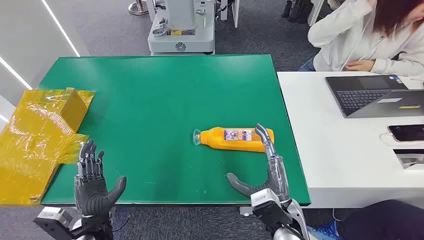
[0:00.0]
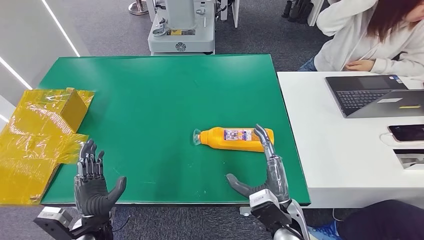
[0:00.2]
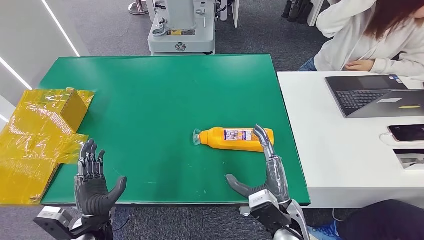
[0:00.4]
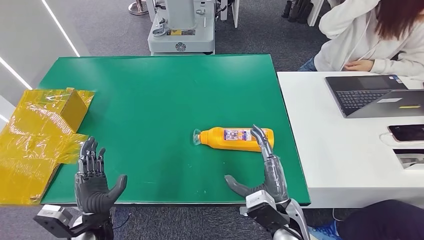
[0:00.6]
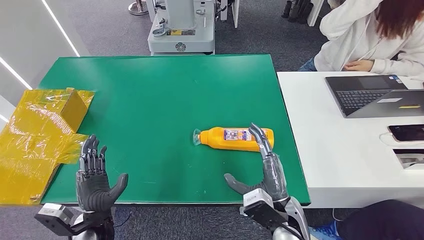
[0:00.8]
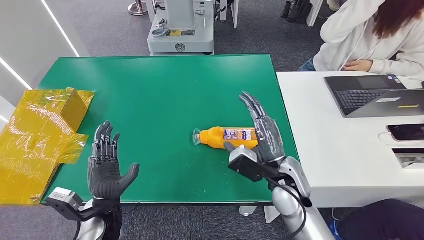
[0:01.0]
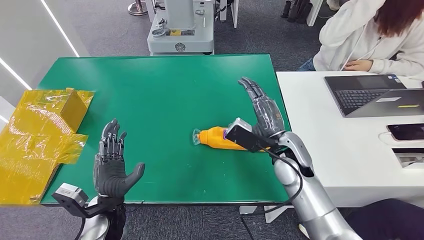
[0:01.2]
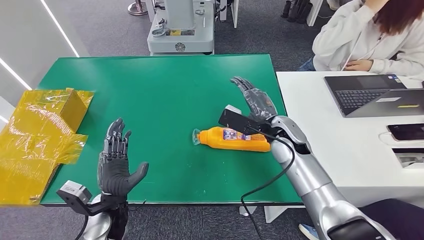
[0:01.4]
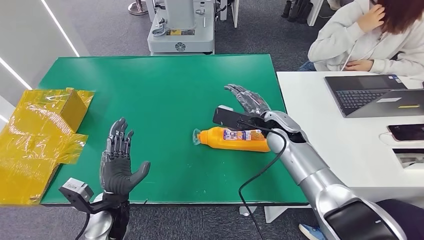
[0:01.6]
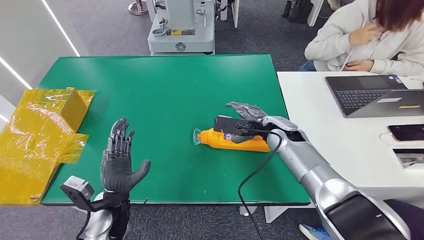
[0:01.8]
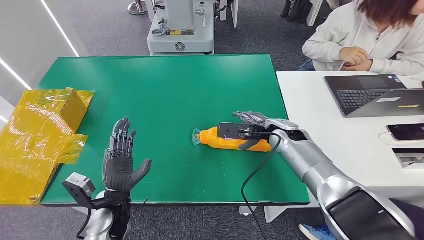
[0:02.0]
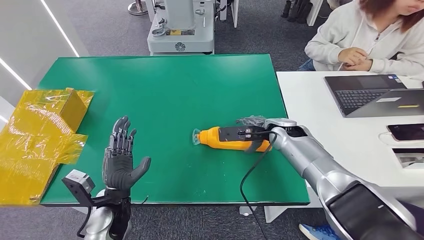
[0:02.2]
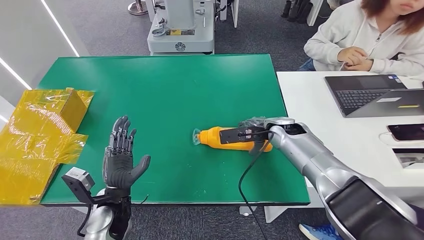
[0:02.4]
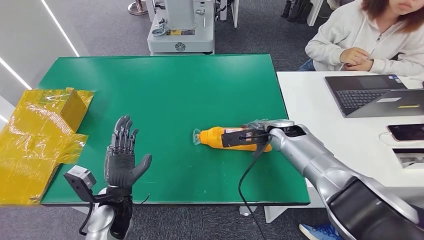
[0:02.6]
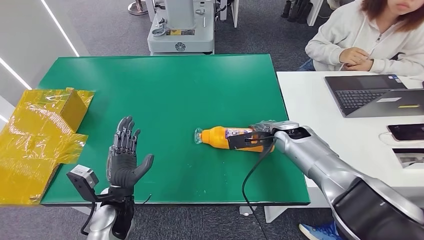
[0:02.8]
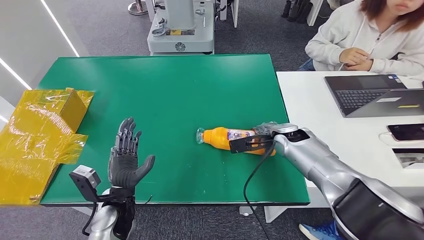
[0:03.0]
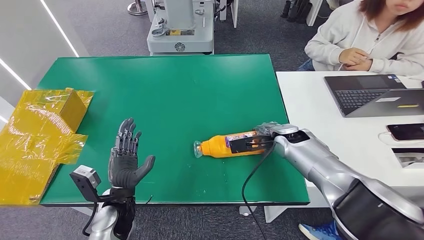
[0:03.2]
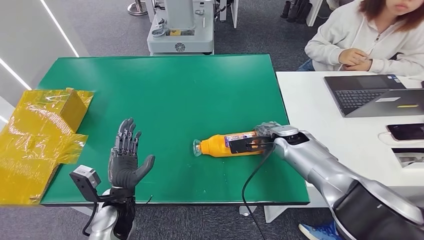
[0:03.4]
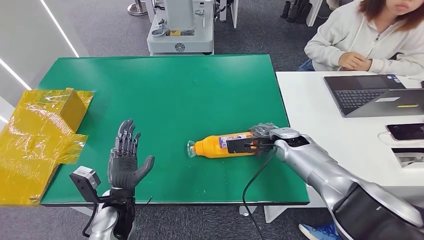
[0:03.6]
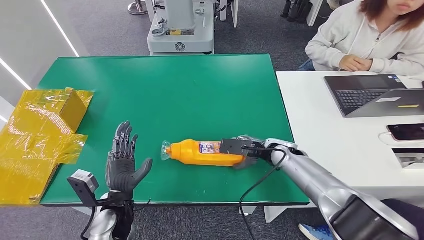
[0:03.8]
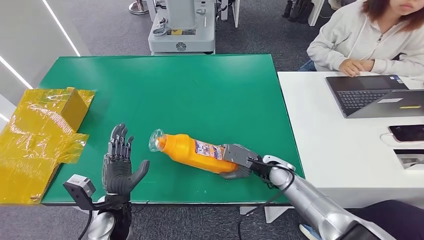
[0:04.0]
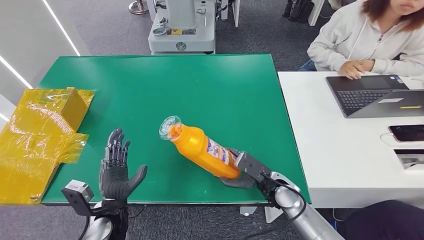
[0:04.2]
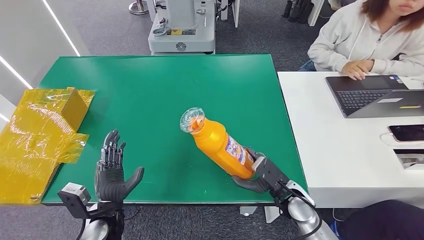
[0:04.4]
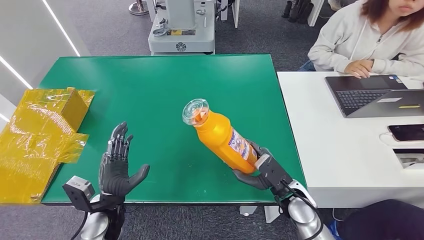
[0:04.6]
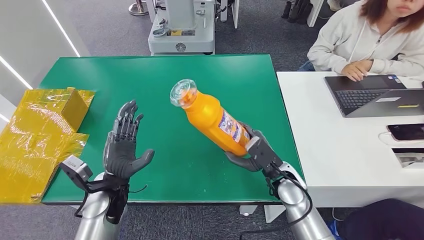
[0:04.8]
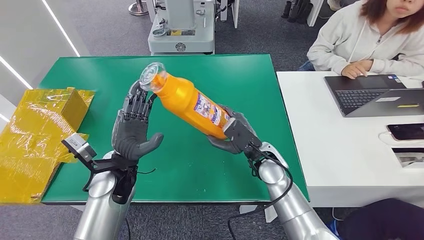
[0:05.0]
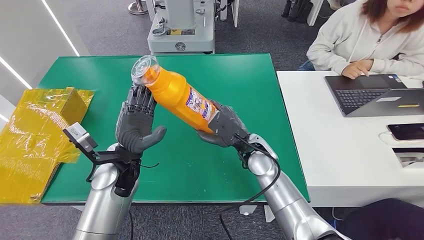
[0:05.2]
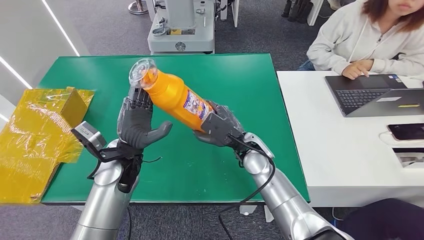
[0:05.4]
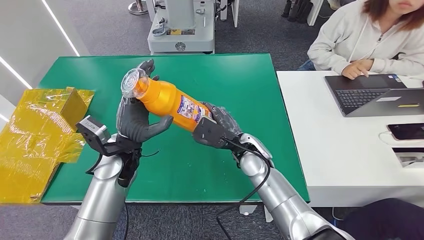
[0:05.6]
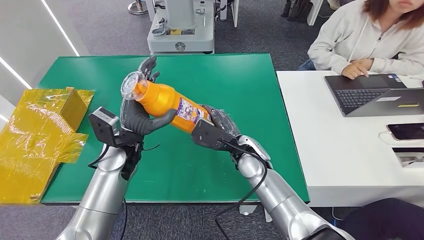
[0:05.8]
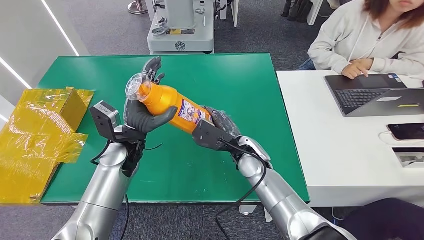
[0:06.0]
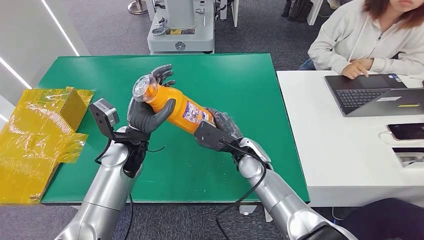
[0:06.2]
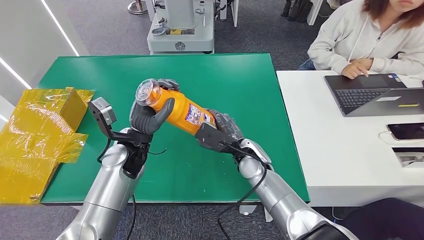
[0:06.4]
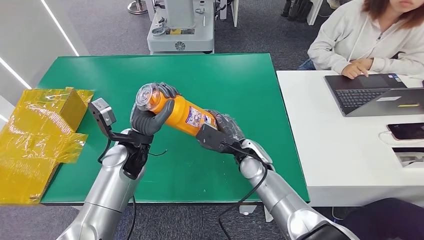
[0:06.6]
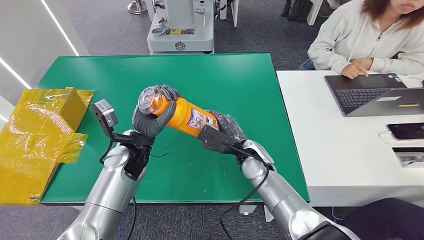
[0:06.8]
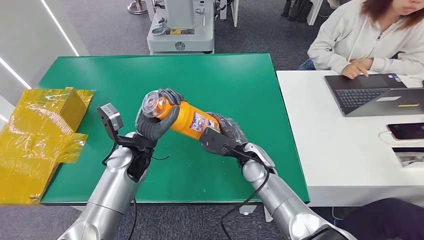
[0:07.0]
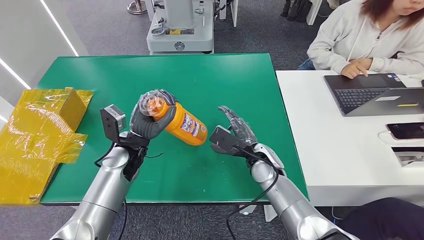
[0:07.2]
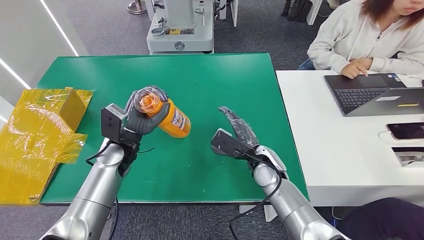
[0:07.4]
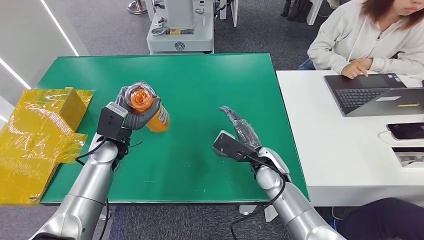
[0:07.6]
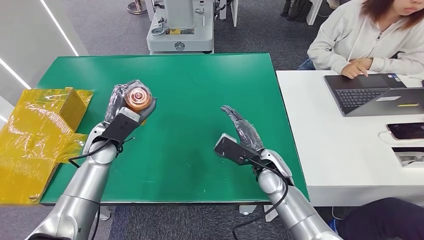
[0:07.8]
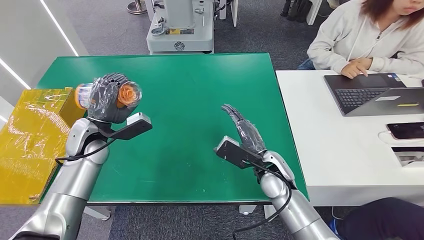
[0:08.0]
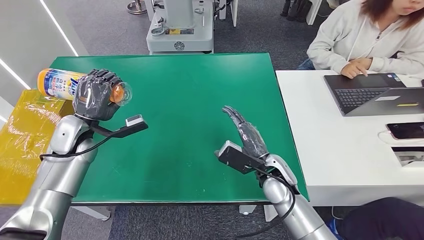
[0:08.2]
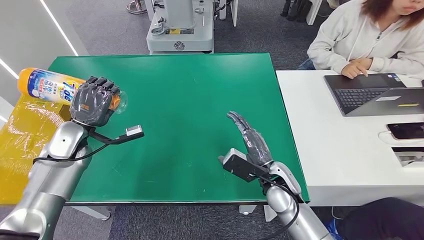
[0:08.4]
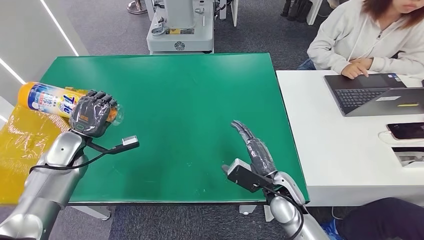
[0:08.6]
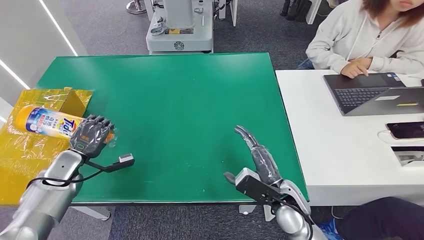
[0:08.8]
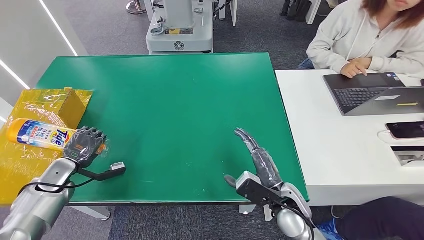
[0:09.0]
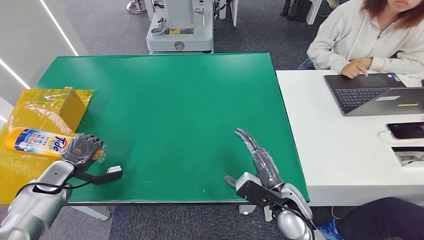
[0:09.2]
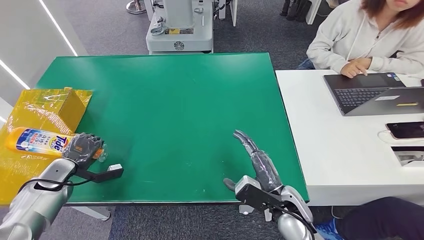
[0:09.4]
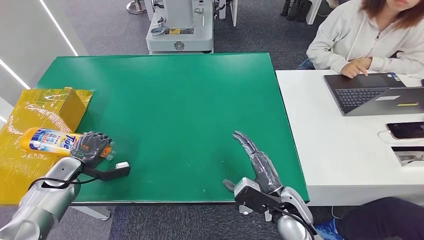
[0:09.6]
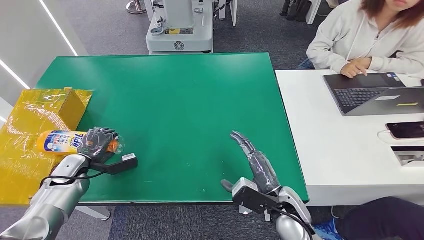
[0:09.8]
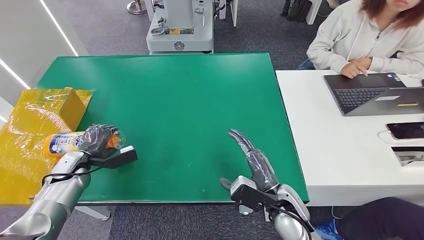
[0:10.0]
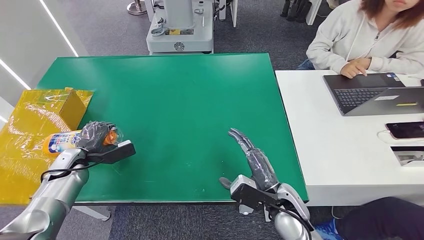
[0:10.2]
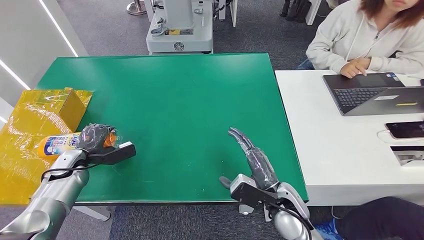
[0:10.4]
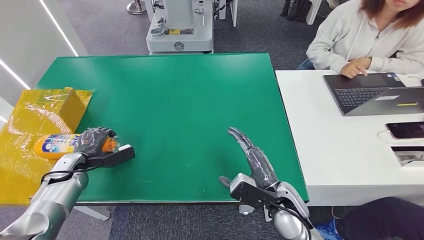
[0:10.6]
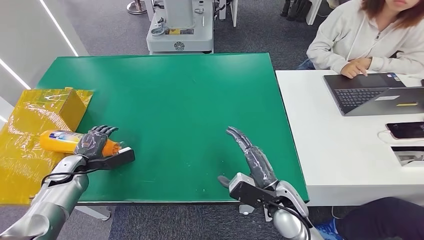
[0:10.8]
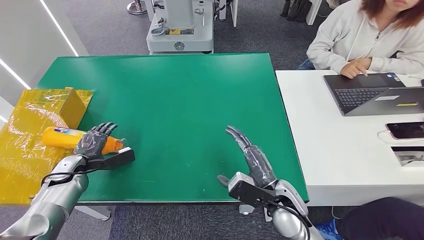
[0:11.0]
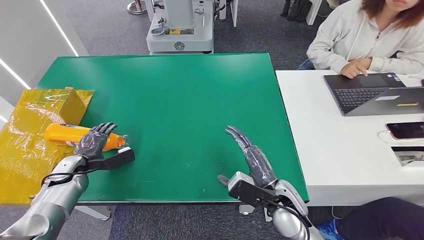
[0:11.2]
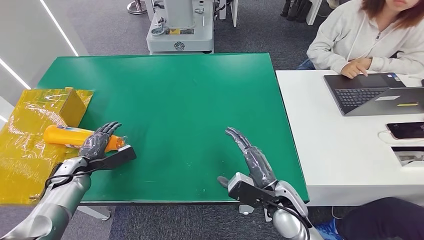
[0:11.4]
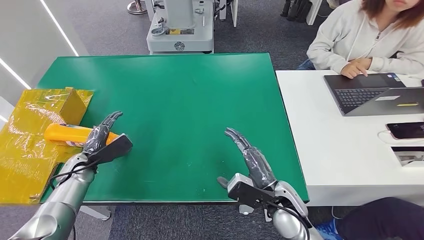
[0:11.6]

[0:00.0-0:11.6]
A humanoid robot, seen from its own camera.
Step, 0:00.0 to 0:05.8: Pick up the bottle from the table.
0:01.4 to 0:02.8: The right hand shifts by some 5 cm.
0:02.8 to 0:04.4: The right hand heads backward and downward, covering some 20 cm.
0:04.4 to 0:05.8: The left hand travels forward and upward by roughly 20 cm; the right hand moves to the left, forward and upward, roughly 15 cm.
0:05.8 to 0:07.2: The right hand moves about 5 cm.
0:07.2 to 0:08.8: The right hand is displaced backward by some 10 cm, while the left hand heads to the left, covering about 20 cm.

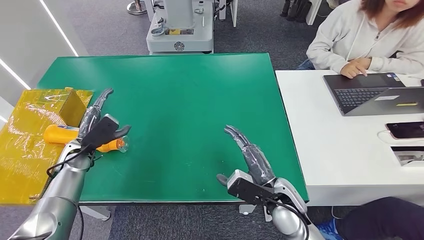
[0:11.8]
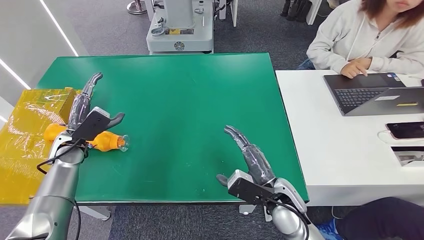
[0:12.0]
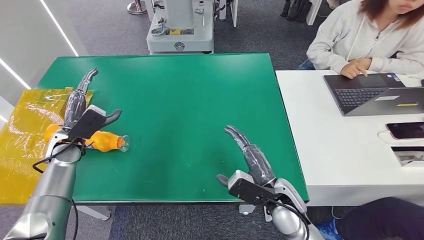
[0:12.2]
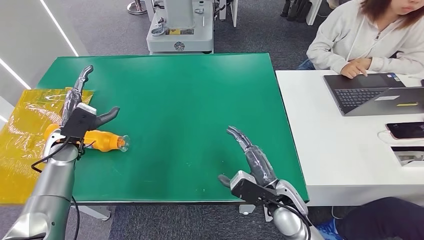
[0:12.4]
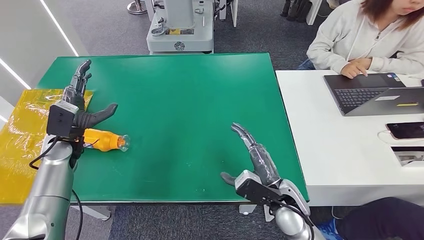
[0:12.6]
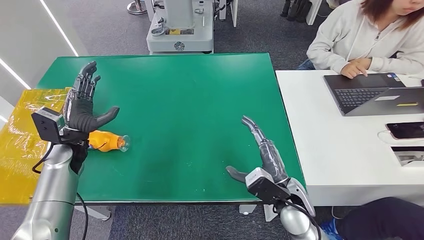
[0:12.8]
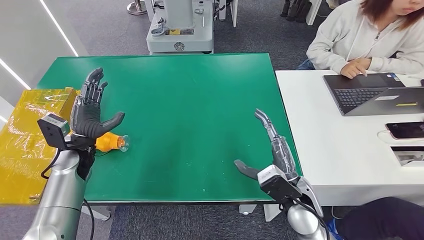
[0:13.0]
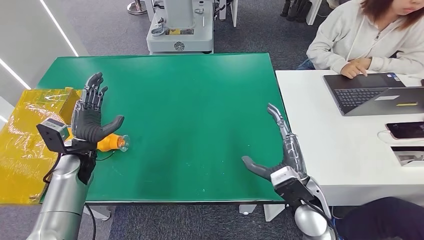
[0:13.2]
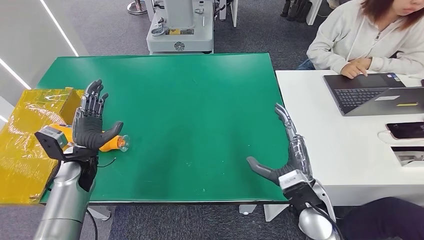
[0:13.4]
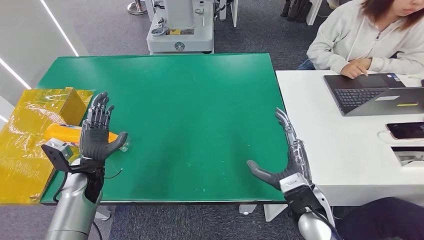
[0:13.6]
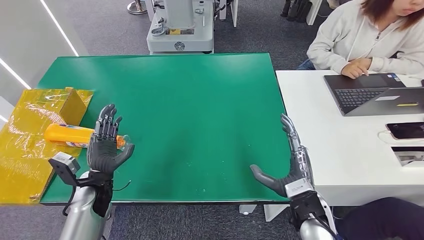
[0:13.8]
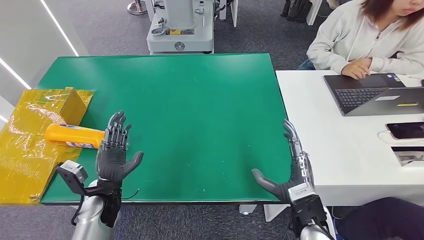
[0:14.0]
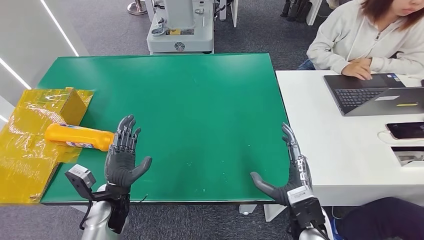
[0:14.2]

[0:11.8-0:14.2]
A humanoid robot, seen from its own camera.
Step, 0:11.8 to 0:14.0: Turn the bottle to the front side.
0:11.8 to 0:13.0: The left hand shifts by roughly 5 cm.
0:13.0 to 0:14.2: The right hand is displaced backward by roughly 5 cm, while the left hand goes approximately 15 cm backward, to the right and downward.
